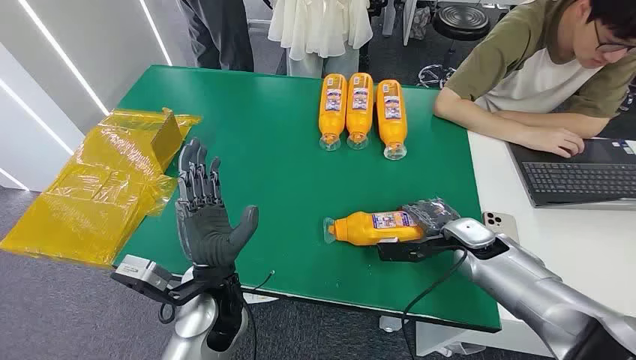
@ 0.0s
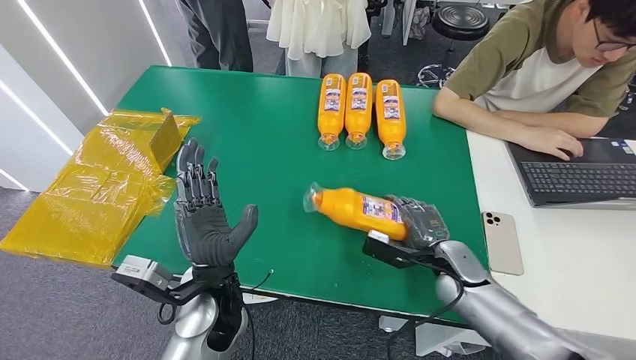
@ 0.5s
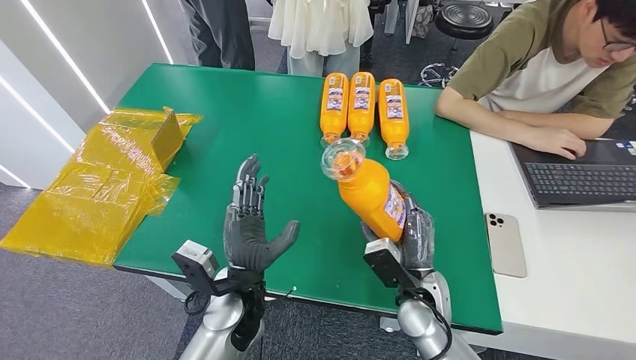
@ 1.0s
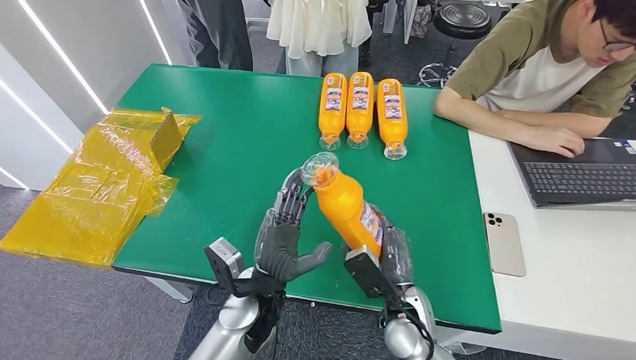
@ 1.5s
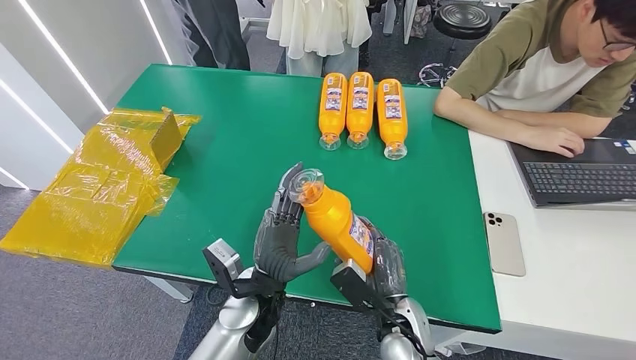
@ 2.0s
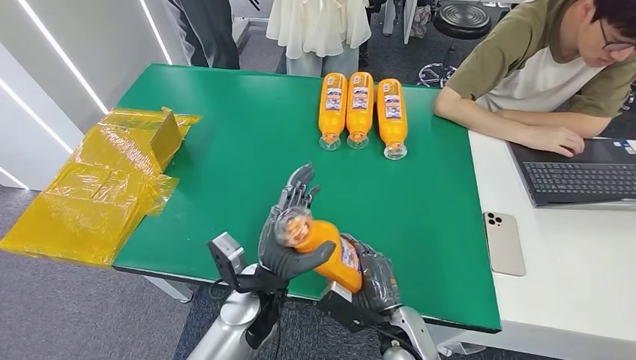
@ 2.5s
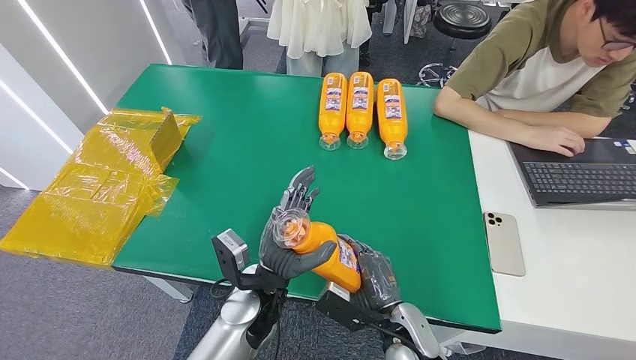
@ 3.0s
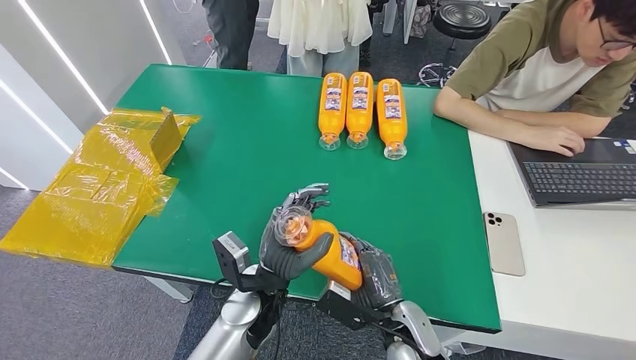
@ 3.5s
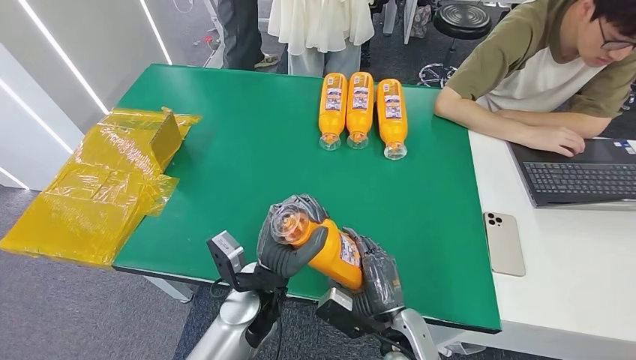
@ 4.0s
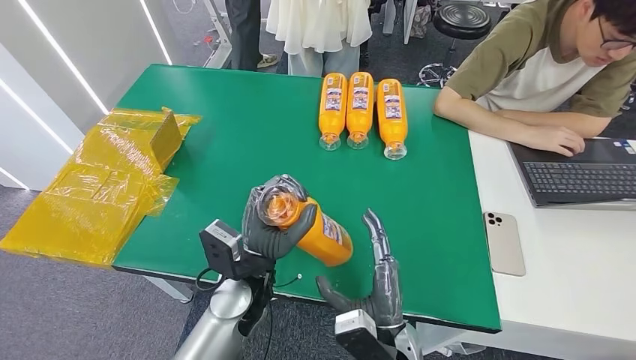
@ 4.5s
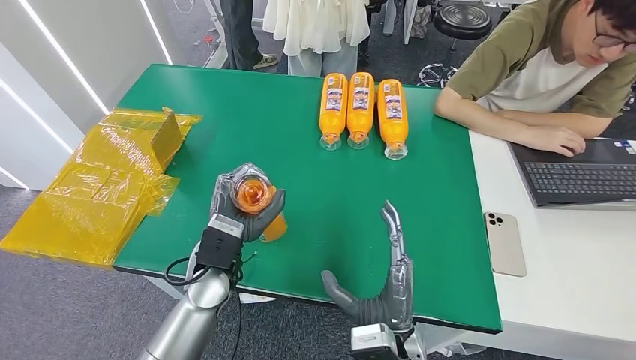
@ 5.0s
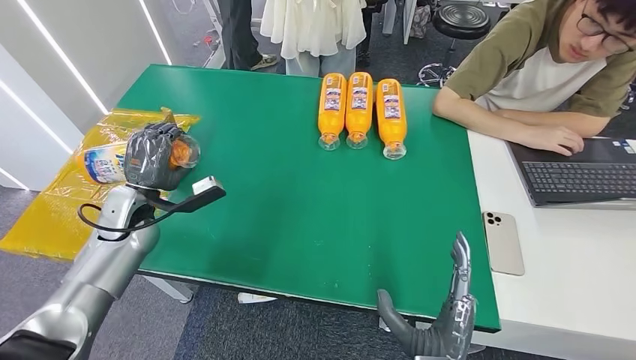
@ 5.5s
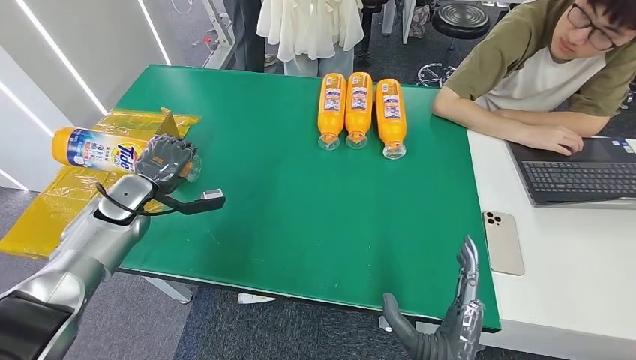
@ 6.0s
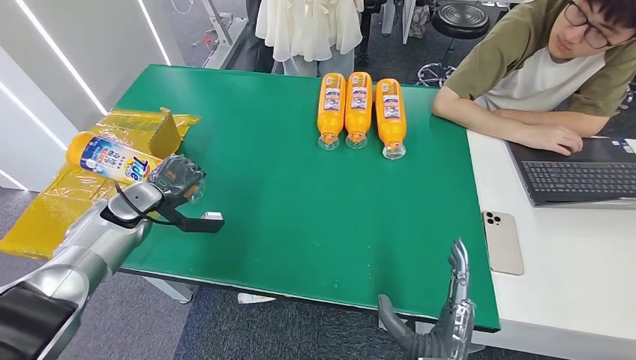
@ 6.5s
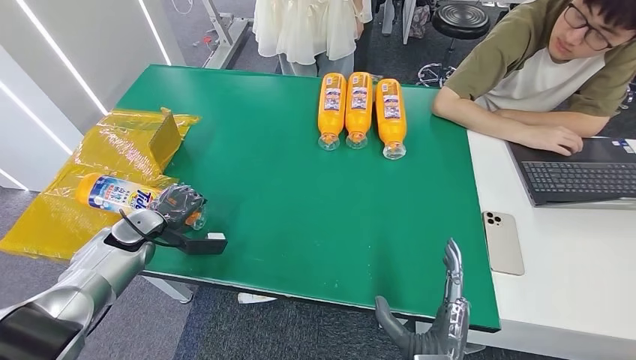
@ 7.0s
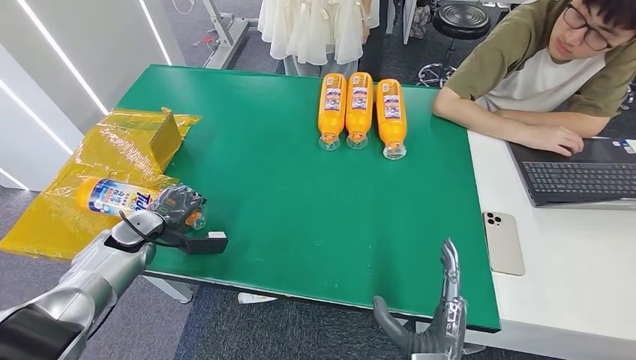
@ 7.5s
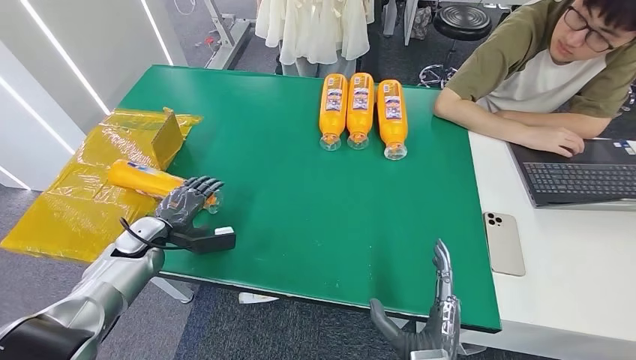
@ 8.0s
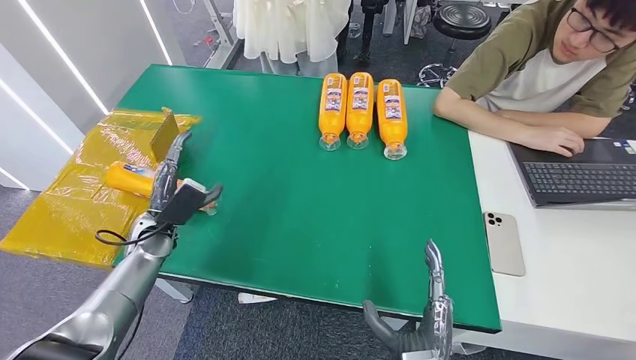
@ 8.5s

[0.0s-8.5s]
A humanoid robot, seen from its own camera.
Step, 0.0s to 2.5s: Pick up the bottle from the table.
Step, 3.0s to 8.5s: Turn the bottle to the front side.
2.0s to 4.0s: The hands move only a little.
6.5s to 8.5s: The left hand shifts some 10 cm to the right and downward.

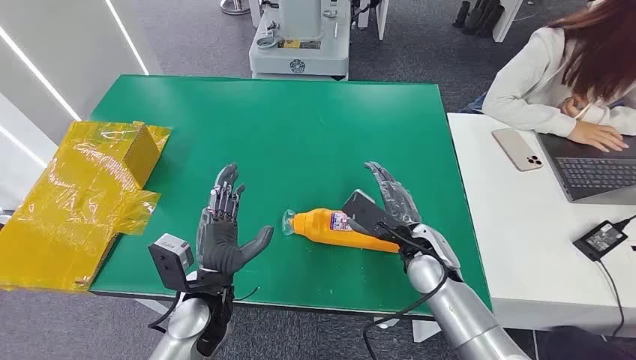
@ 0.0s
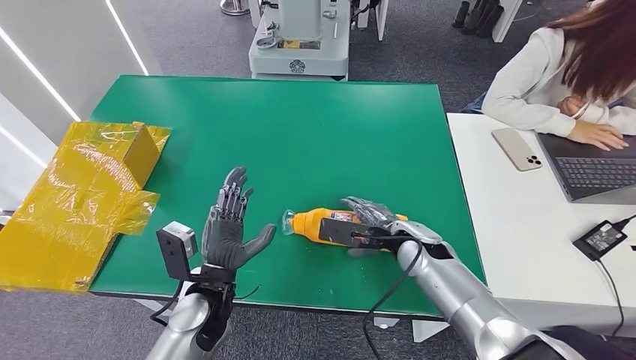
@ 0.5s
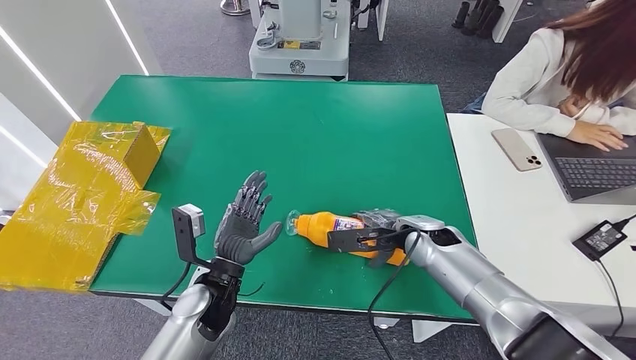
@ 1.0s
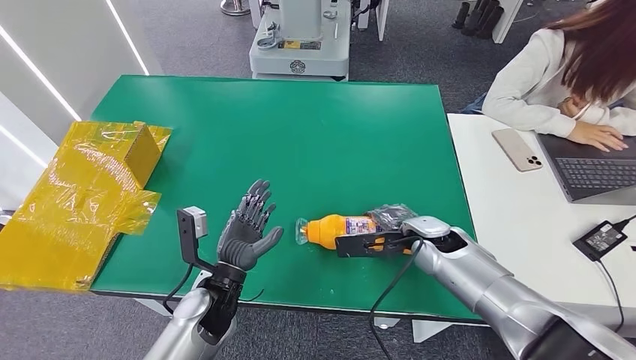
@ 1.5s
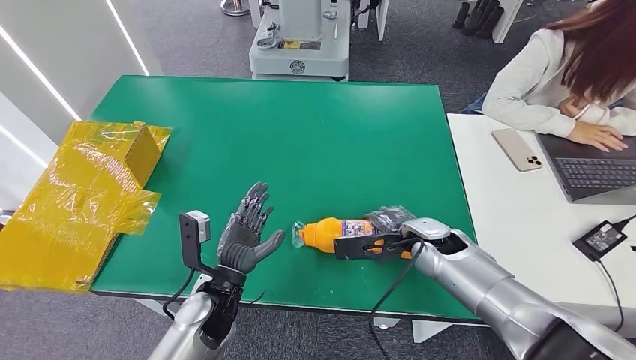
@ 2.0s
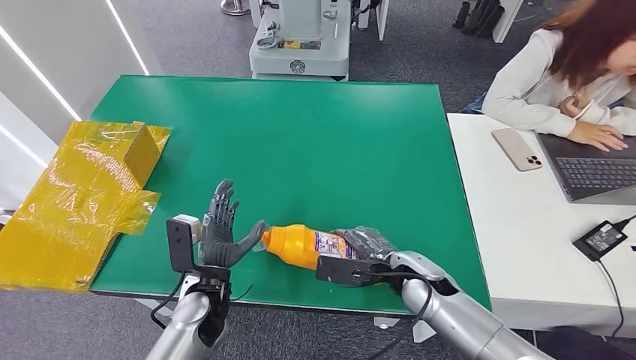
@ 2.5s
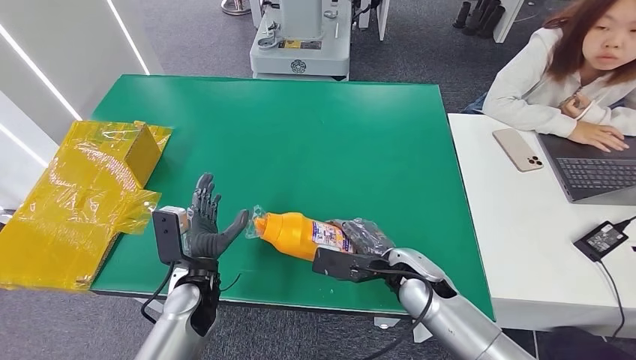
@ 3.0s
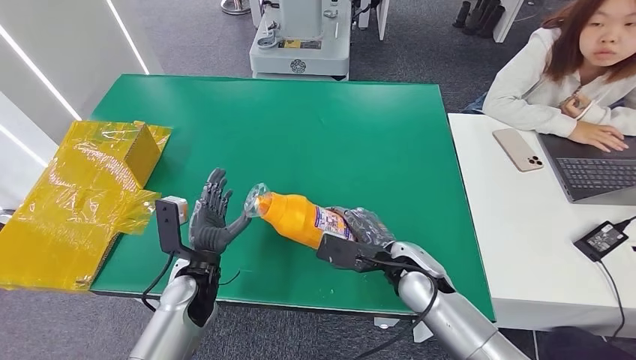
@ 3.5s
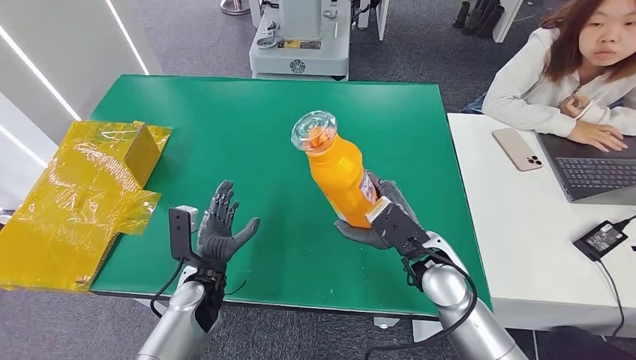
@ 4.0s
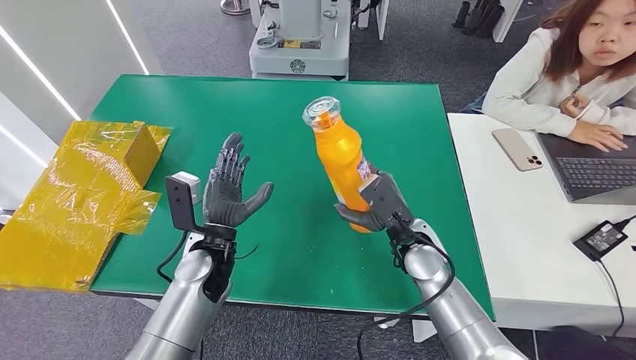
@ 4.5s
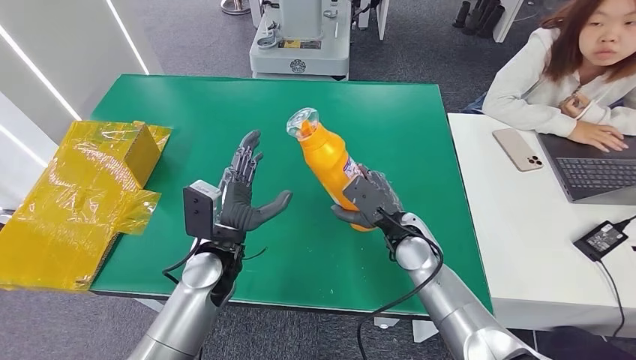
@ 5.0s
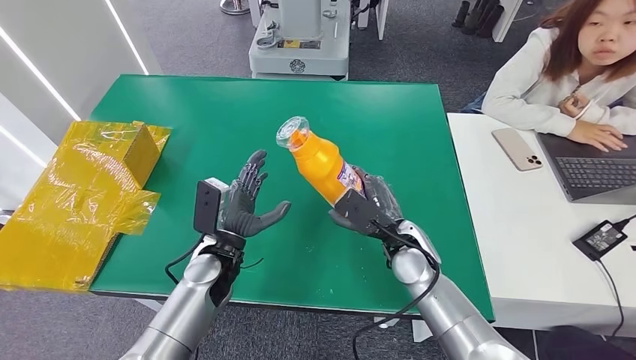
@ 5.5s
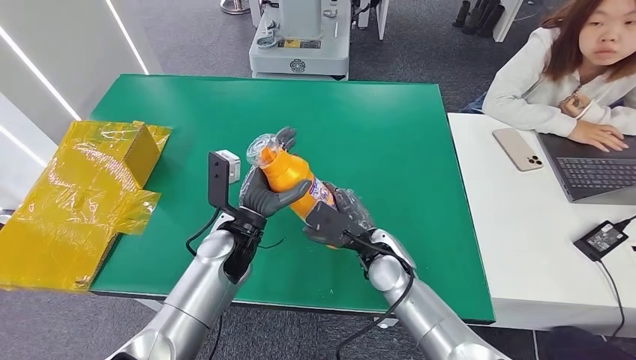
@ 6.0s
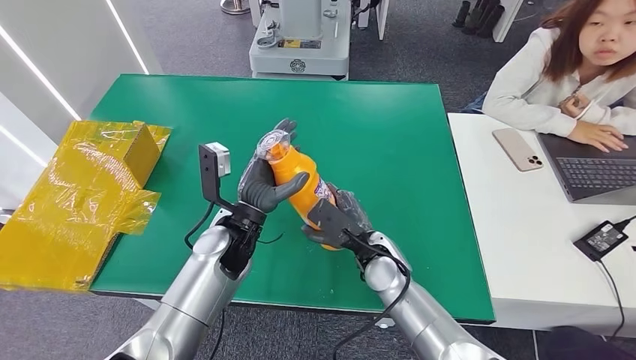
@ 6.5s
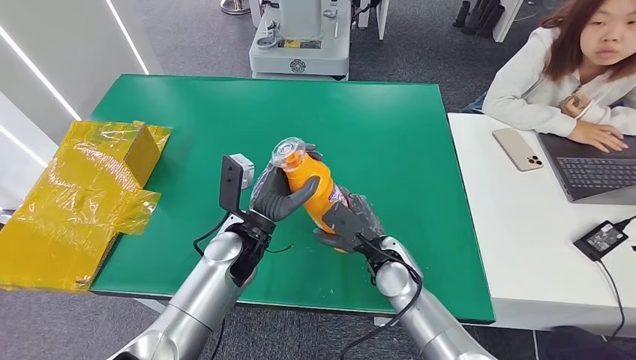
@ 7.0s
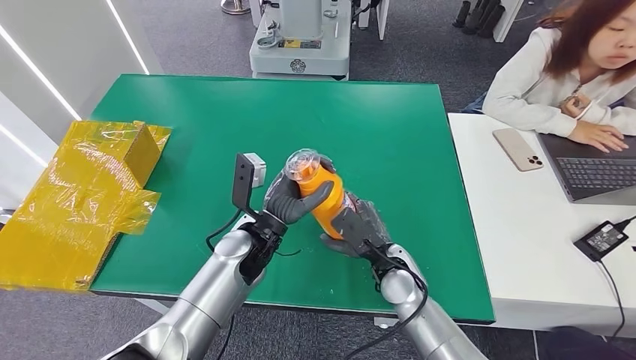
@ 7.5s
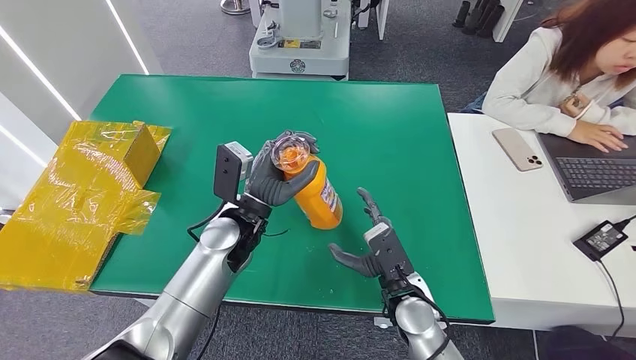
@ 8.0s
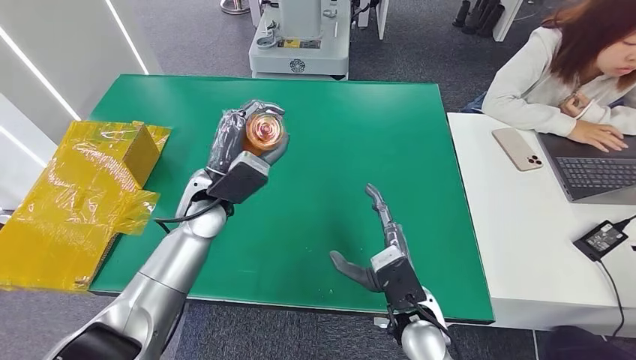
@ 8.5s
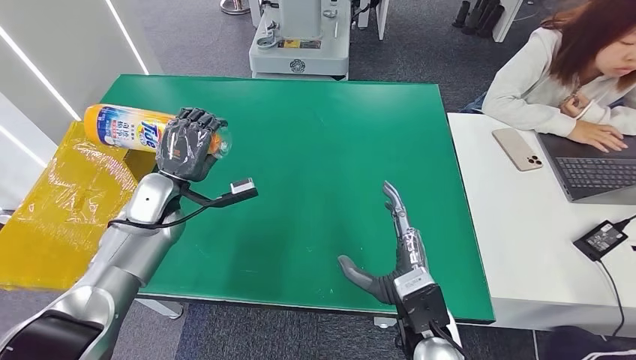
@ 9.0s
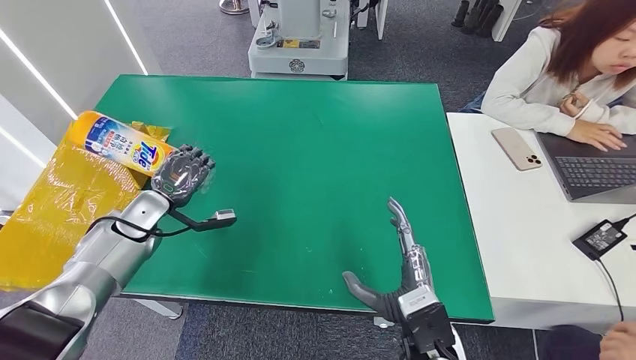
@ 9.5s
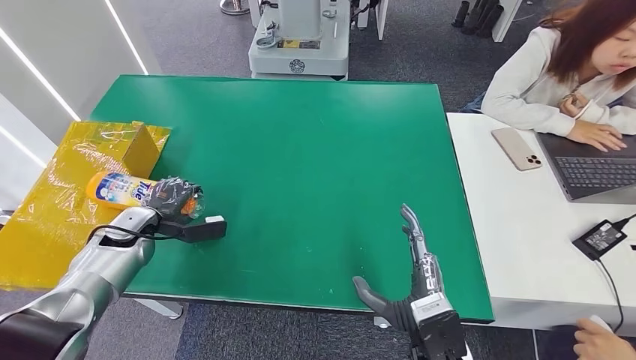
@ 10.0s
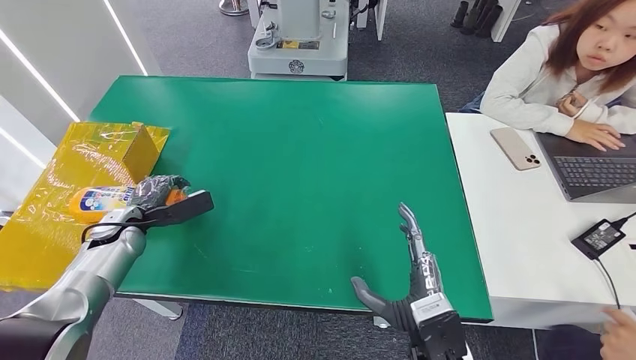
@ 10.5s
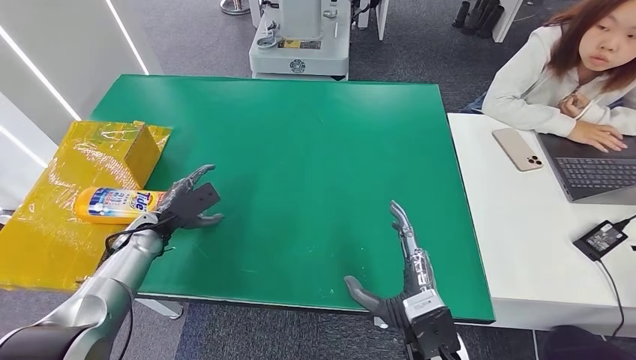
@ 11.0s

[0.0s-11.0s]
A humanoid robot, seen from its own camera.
Step, 0.0s to 3.0s: Pick up the bottle from the table.
Step, 5.0s to 11.0s: Turn the bottle to the front side.
2.0s to 3.5s: The left hand moves some 5 cm. The right hand shifts approximately 10 cm backward and to the left.
5.5s to 7.5s: The right hand ends up roughly 5 cm from where it was, while the left hand travels to the right by some 5 cm.
9.0s to 11.0s: The left hand travels downward and to the left by about 10 cm.
